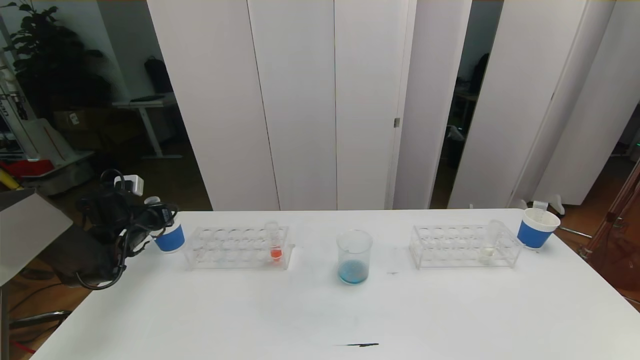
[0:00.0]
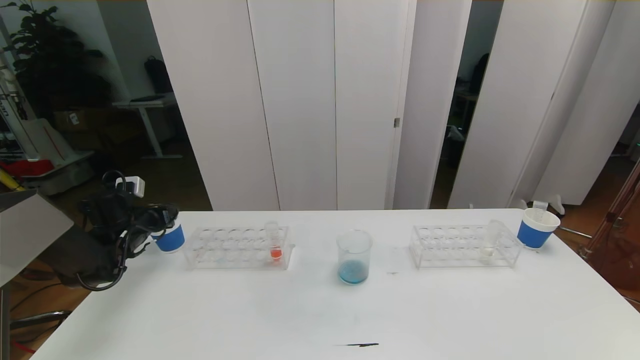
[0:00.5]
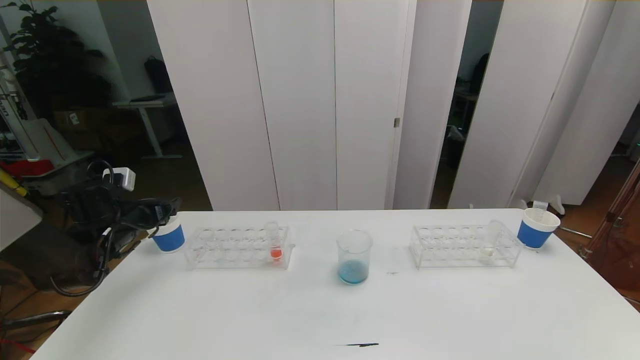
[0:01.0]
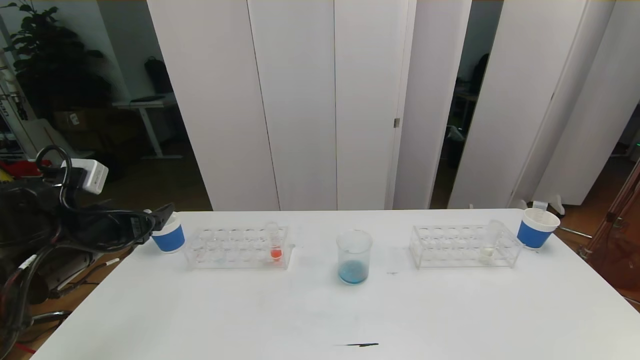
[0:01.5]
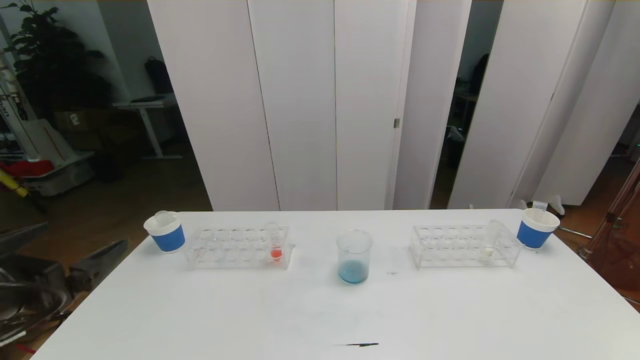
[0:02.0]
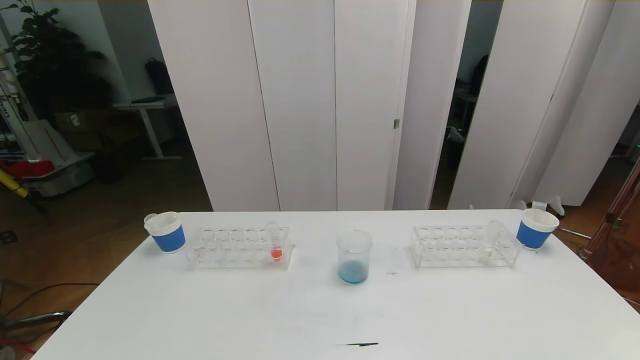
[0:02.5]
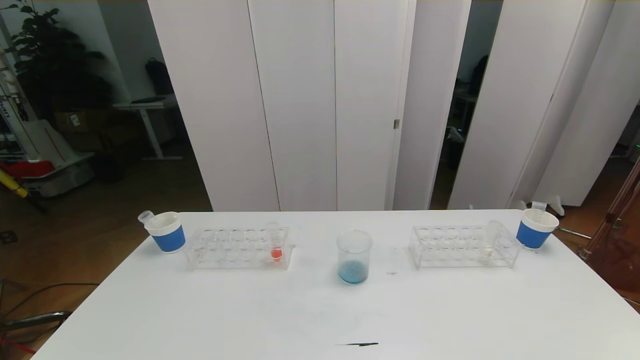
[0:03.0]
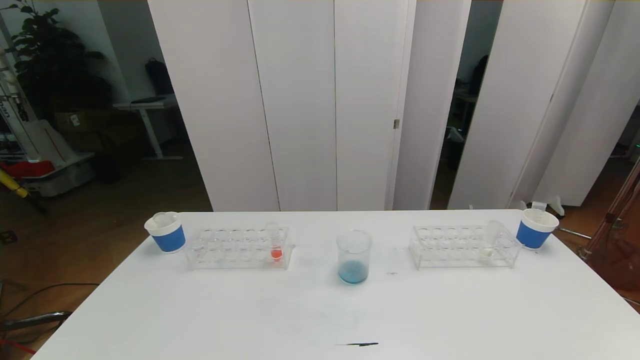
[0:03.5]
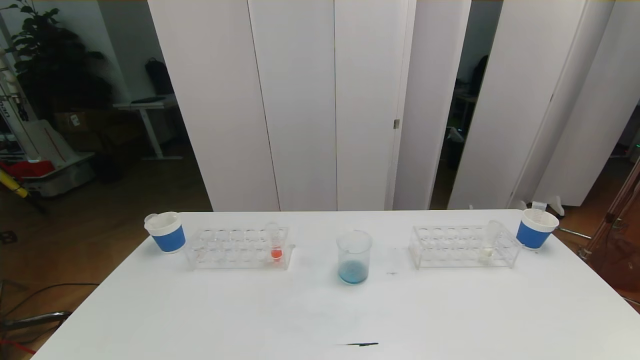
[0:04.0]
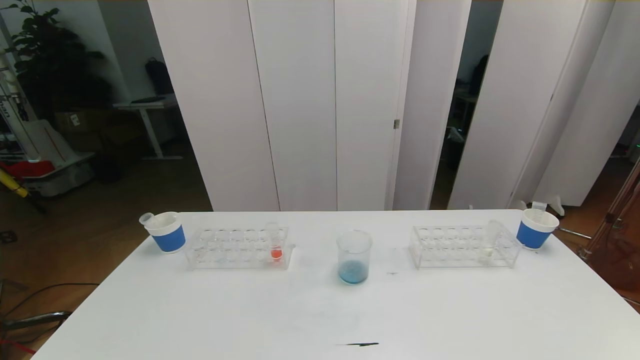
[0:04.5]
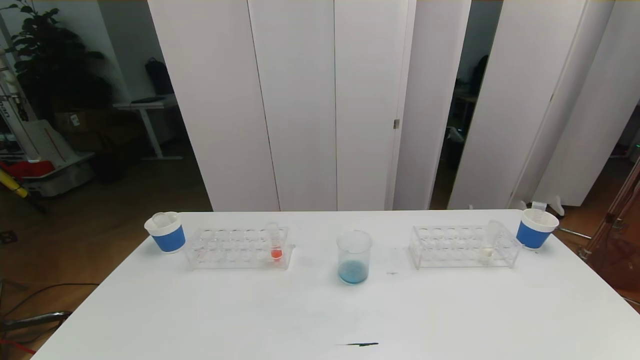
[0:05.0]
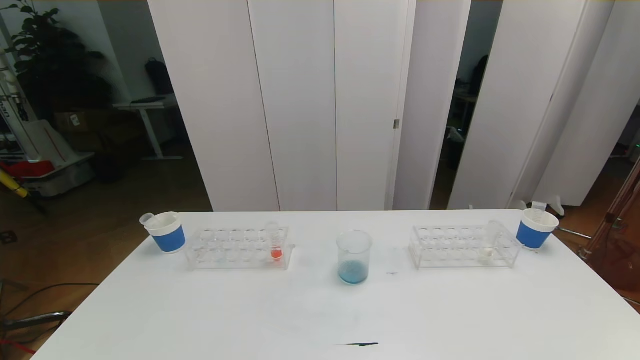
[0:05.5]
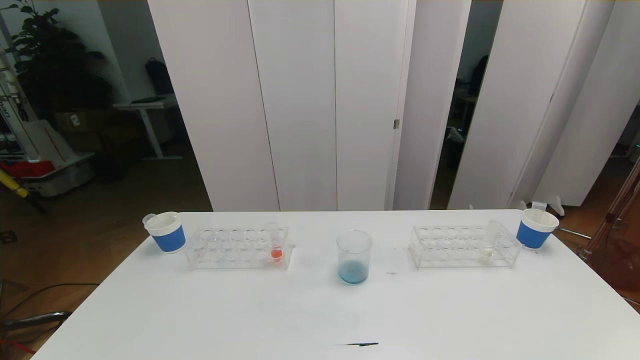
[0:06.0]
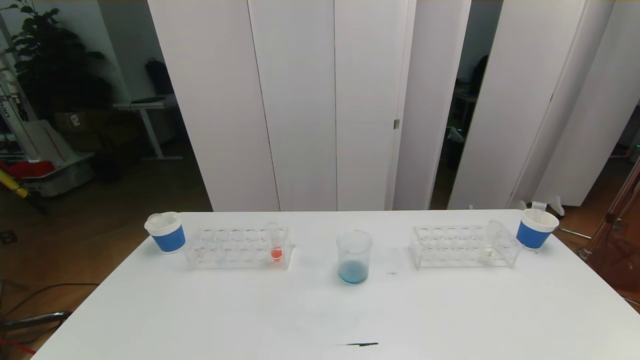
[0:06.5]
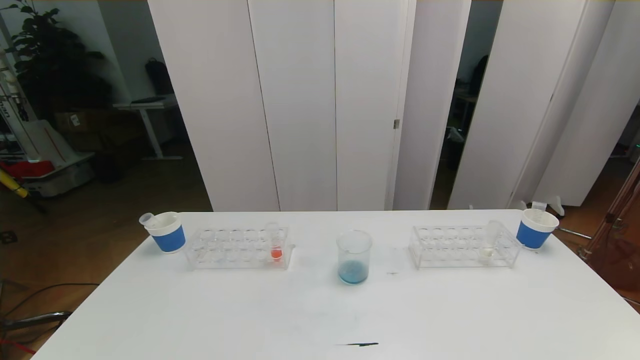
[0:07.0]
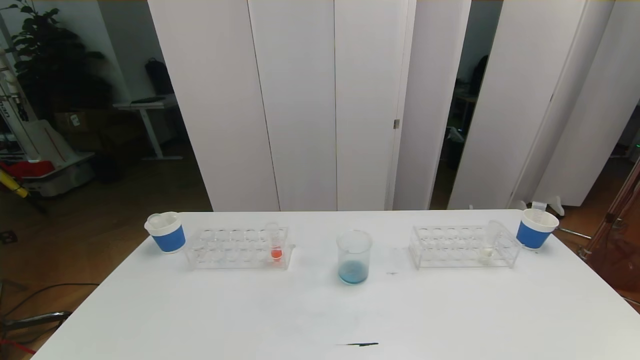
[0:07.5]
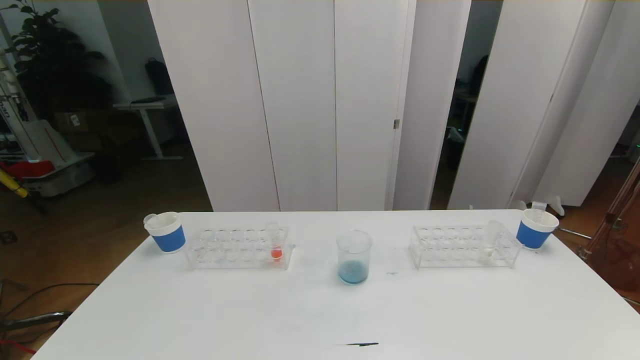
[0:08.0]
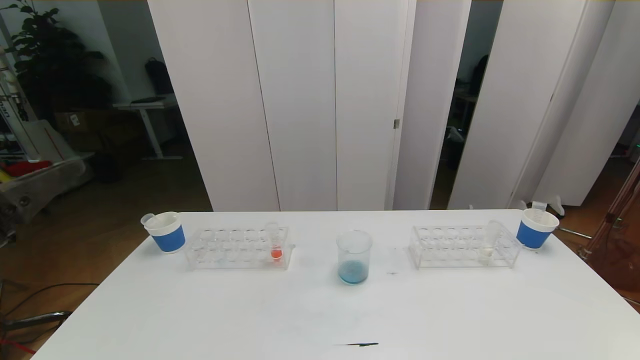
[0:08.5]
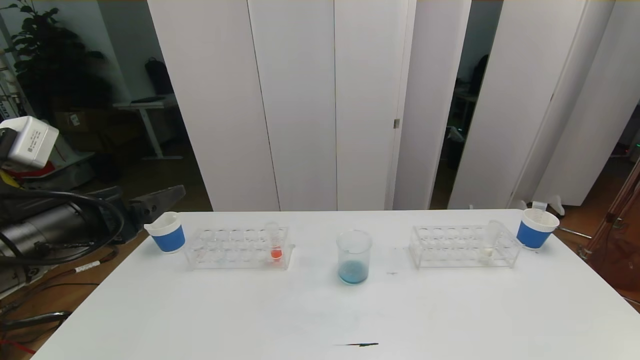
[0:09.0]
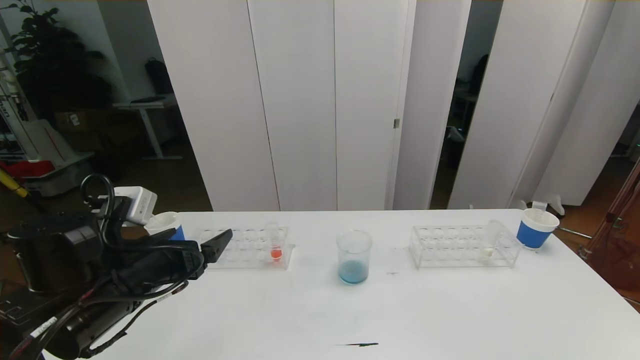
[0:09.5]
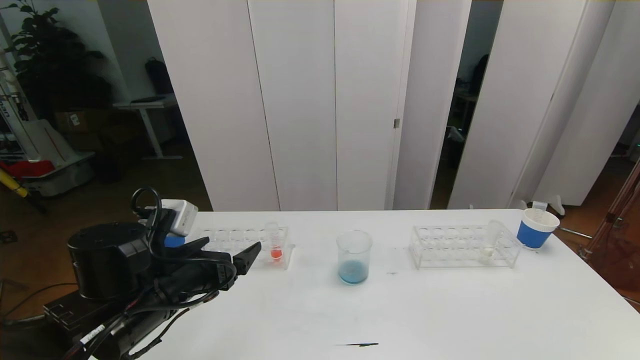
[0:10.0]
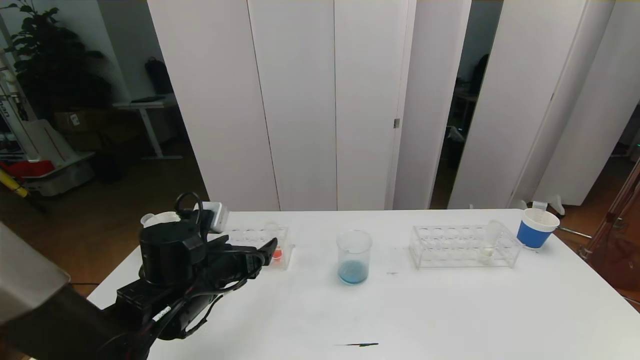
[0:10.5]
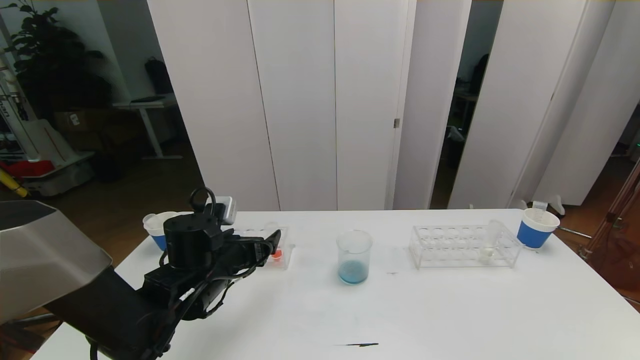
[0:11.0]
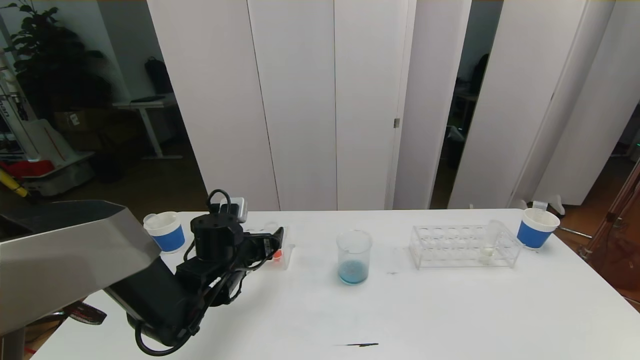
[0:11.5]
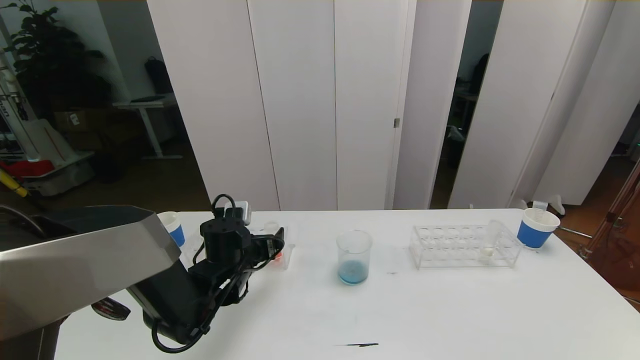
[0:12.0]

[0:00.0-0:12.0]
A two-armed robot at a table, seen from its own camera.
Task of the whole recording: pick up the test tube with red pigment the test tube with blue pigment and the test tube with white pigment by grippers and pour them into the beaker.
Step, 0:00.0 to 0:04.5: Pour the blue reagent into the graduated cylinder and place the test tube into the paper cup.
0:00.0 to 0:02.0: The left gripper shifts some 35 cm backward and upward, and opens its fingers.
0:02.0 to 0:04.0: The left gripper is displaced backward and downward by roughly 20 cm.
0:08.0 to 0:10.0: The left gripper shifts about 25 cm forward.
0:10.0 to 0:12.0: The left gripper travels forward and downward by about 15 cm.

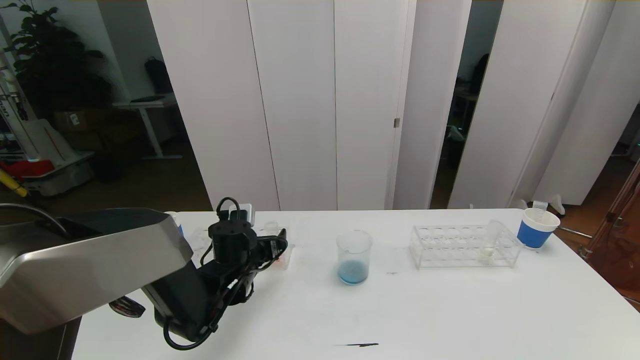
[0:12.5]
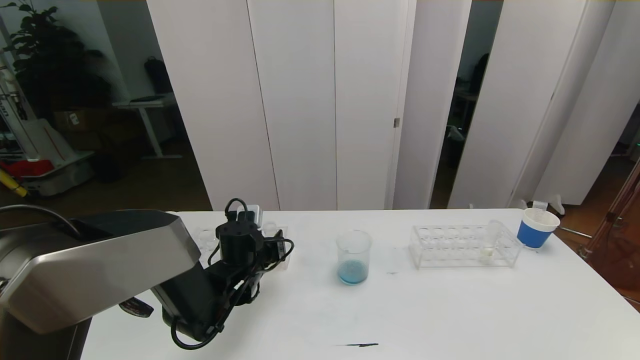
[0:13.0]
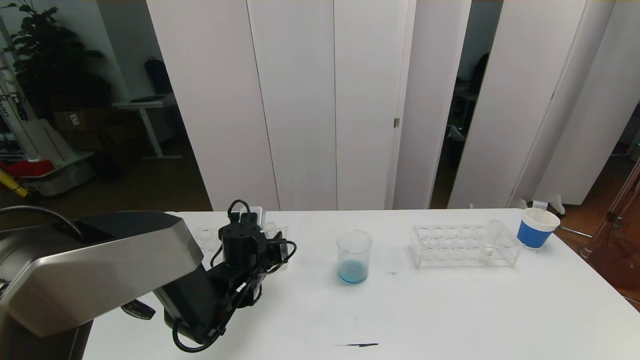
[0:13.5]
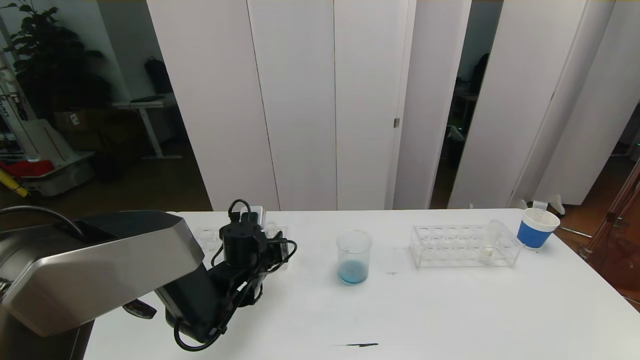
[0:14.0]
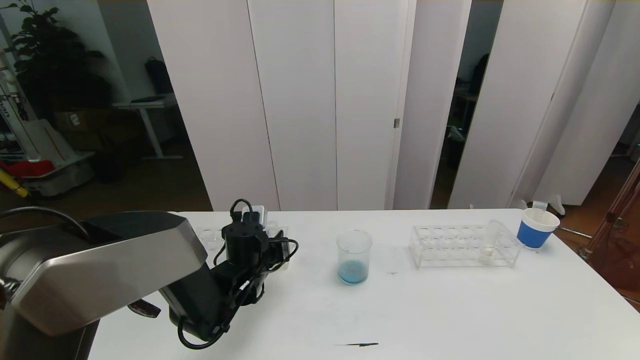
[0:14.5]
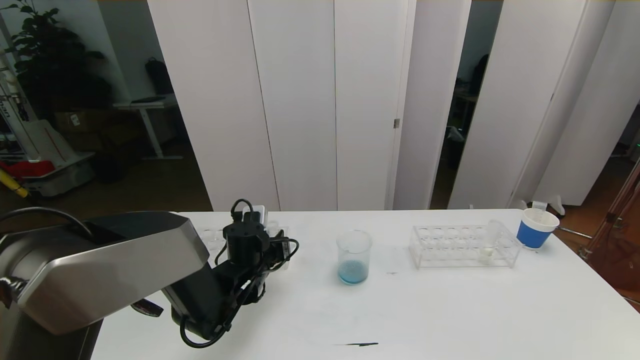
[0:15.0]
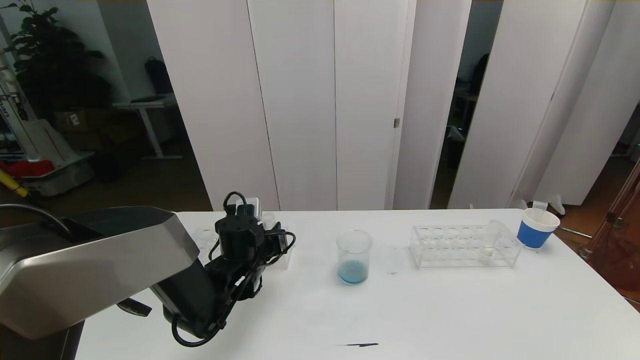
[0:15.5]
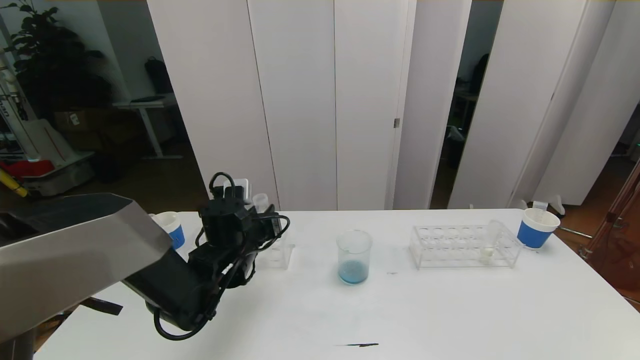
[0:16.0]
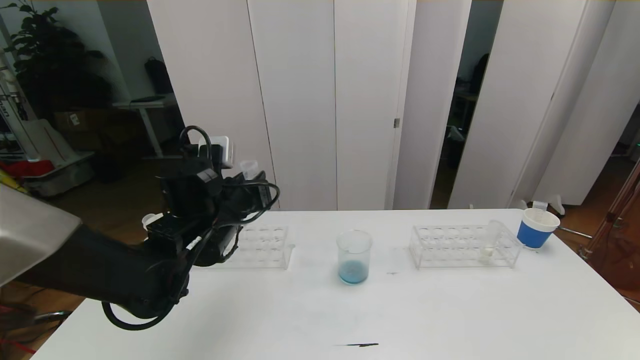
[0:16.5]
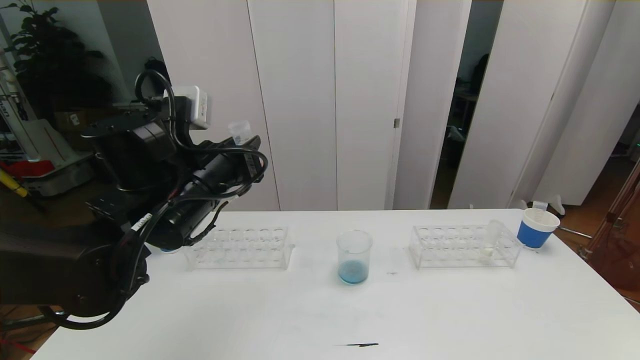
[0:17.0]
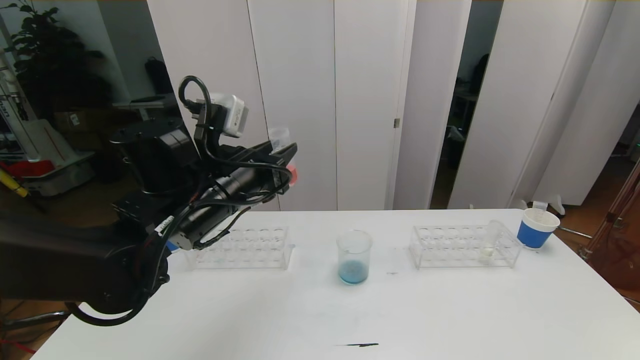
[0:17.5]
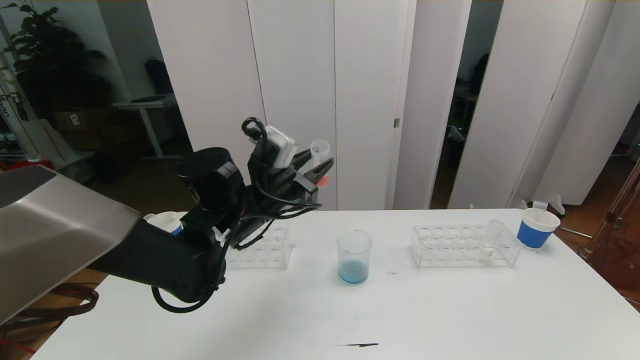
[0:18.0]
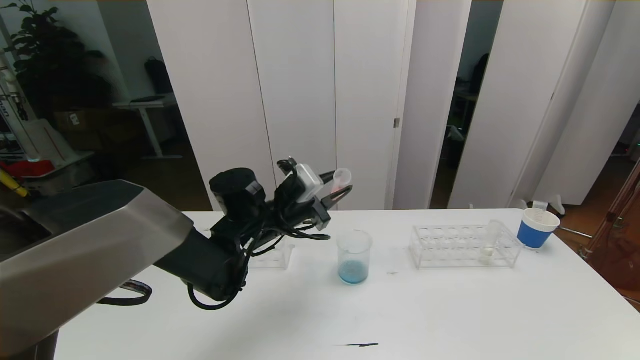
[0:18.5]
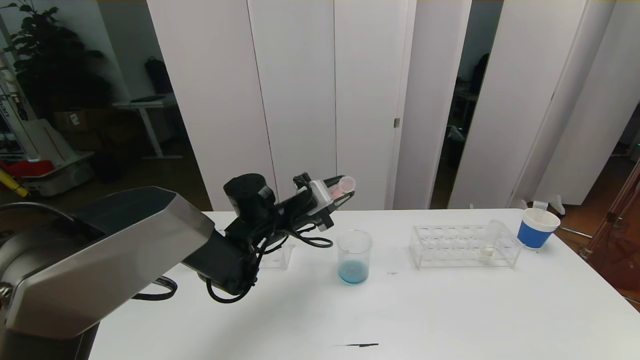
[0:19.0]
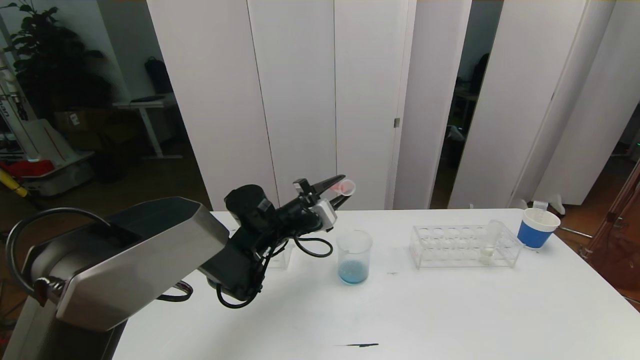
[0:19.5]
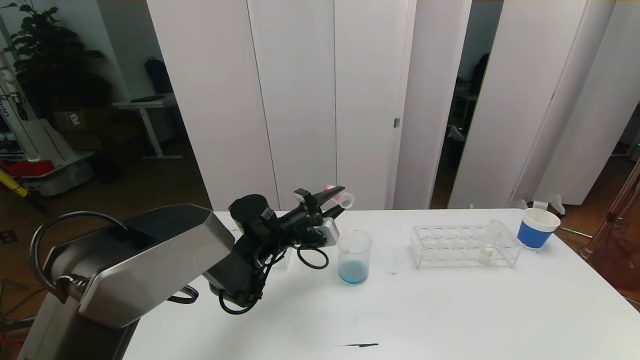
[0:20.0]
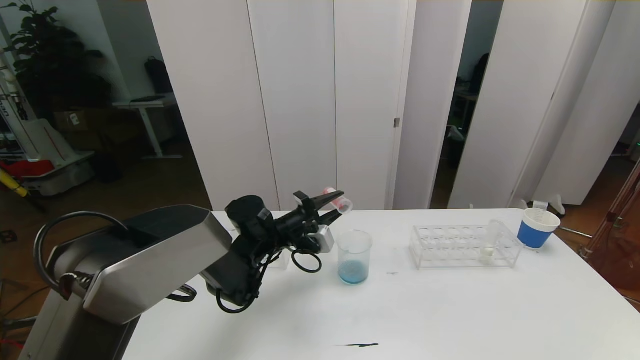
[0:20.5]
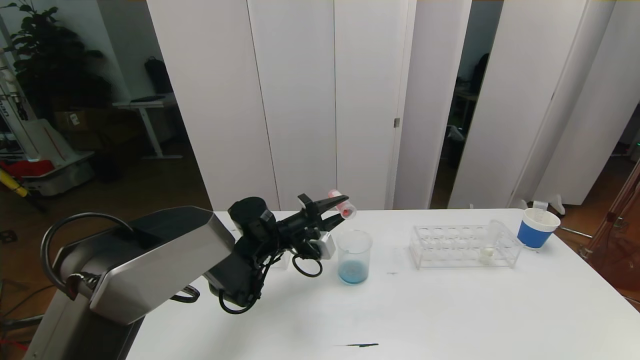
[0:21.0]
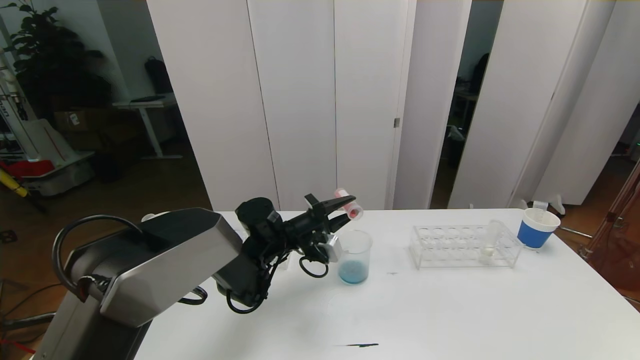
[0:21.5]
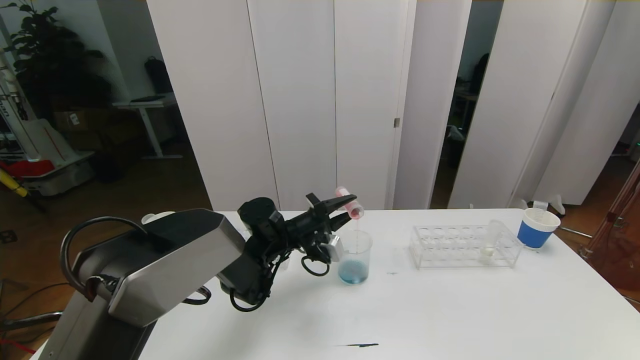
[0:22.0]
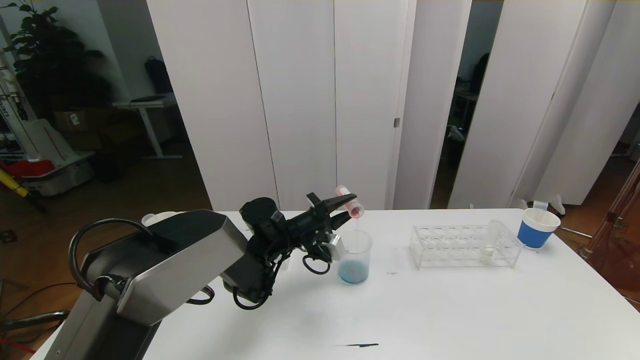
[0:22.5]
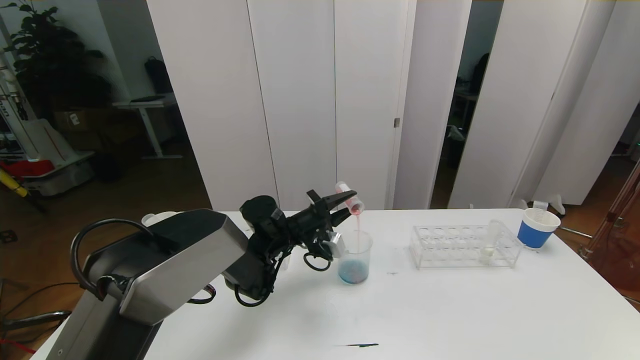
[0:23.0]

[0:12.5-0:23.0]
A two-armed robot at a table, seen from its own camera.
Task of the whole recording: pick up the test tube with red pigment the test tube with blue pigment and the test tube with white pigment by grippers and pour them into the beaker.
0:12.5 to 0:14.5: The left gripper closes its fingers.
0:14.5 to 0:16.5: The left gripper shifts approximately 15 cm upward.
0:16.5 to 0:19.0: The left gripper shifts some 10 cm forward, to the right and downward.
0:19.0 to 0:21.0: The left gripper changes place by roughly 5 cm.
0:21.0 to 0:23.0: The grippers move only a little.
